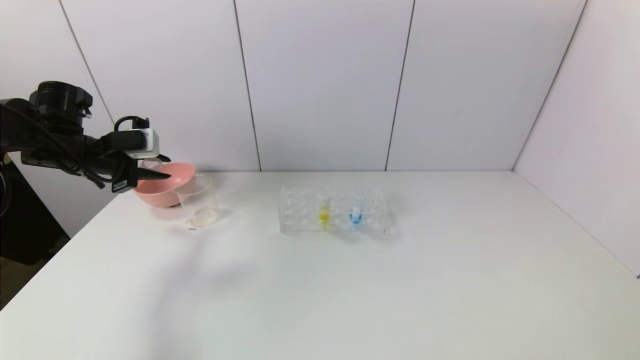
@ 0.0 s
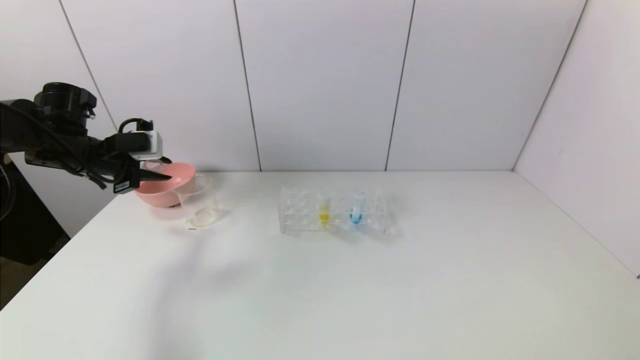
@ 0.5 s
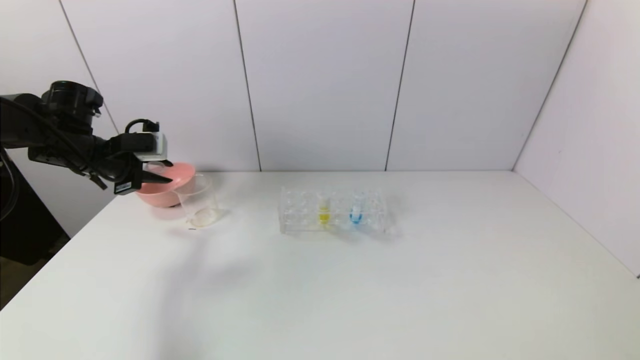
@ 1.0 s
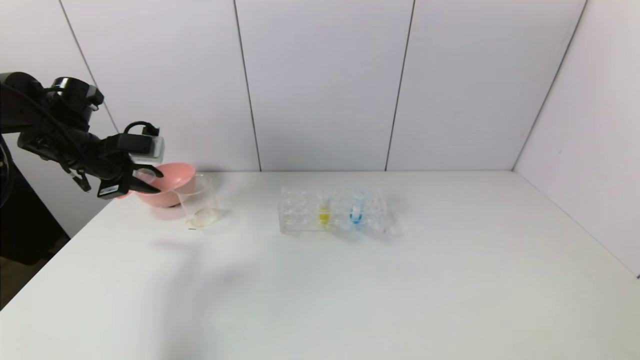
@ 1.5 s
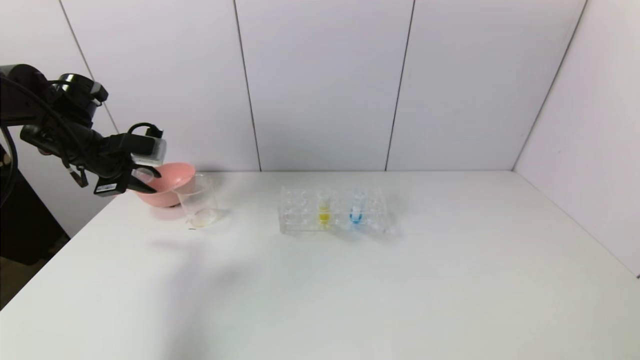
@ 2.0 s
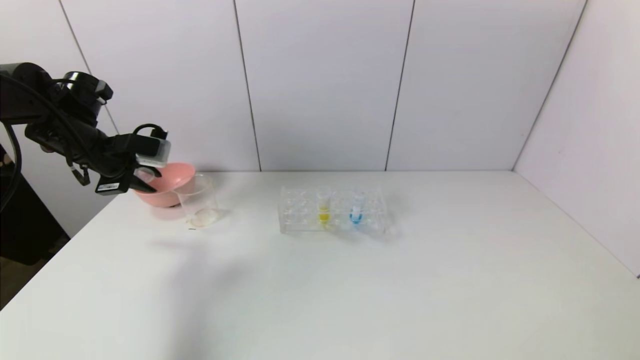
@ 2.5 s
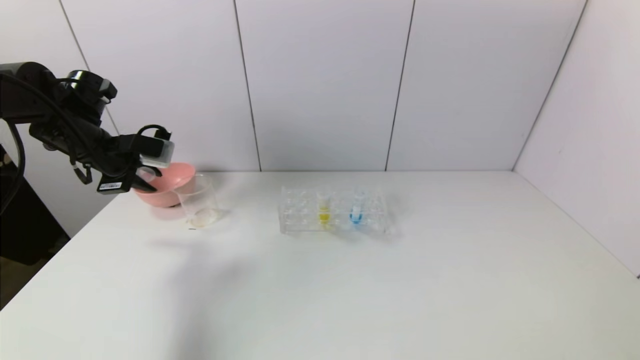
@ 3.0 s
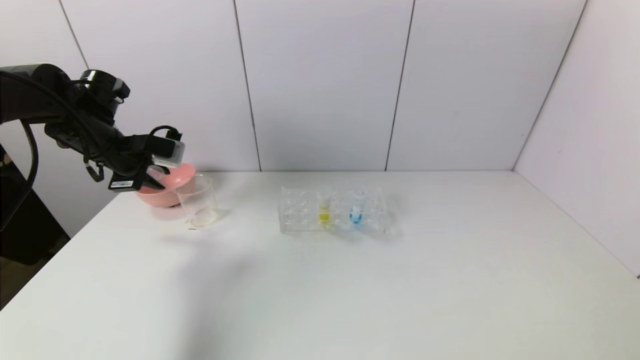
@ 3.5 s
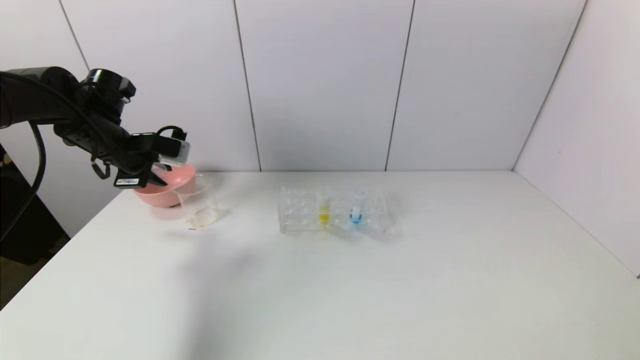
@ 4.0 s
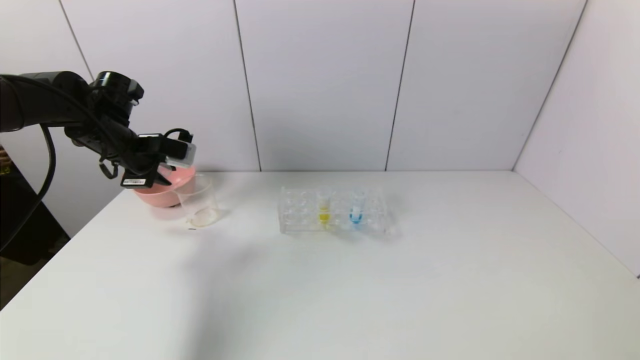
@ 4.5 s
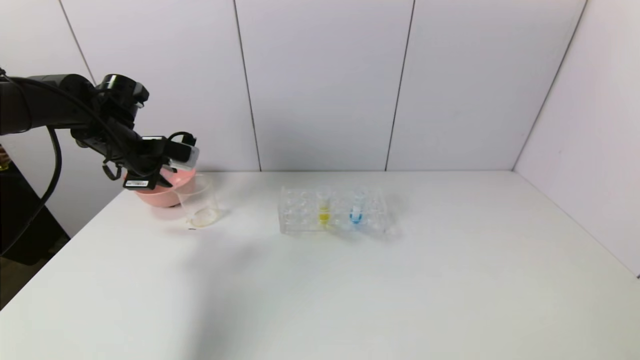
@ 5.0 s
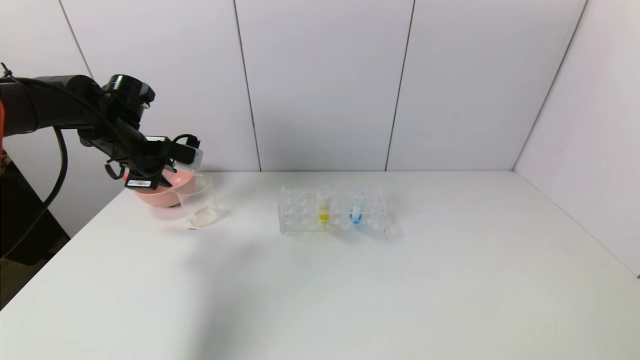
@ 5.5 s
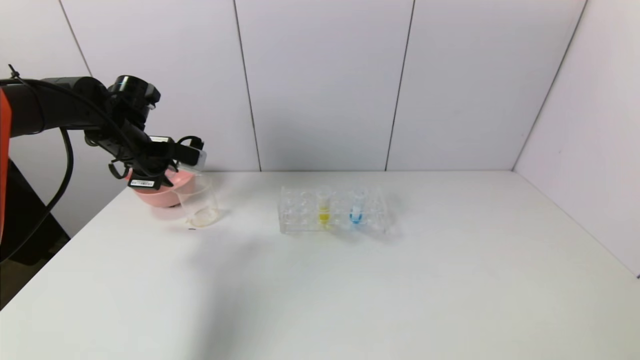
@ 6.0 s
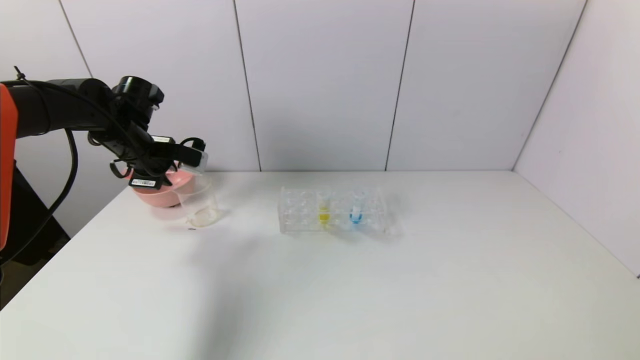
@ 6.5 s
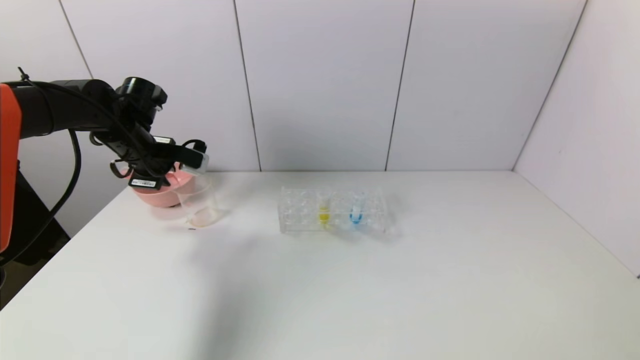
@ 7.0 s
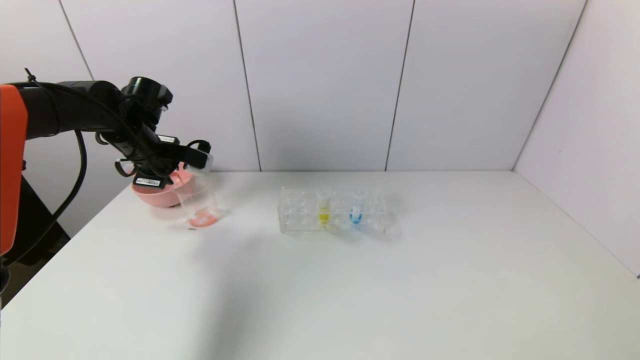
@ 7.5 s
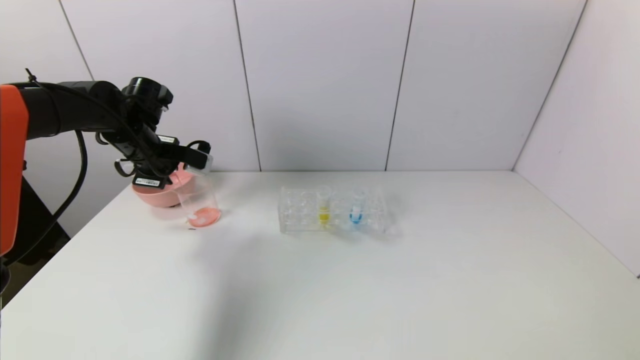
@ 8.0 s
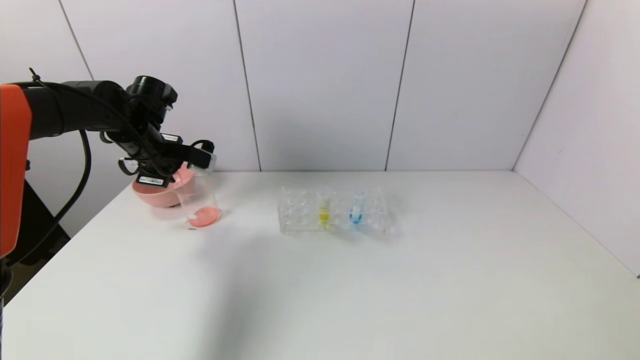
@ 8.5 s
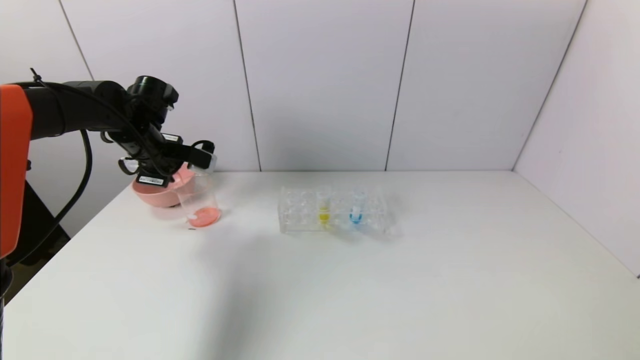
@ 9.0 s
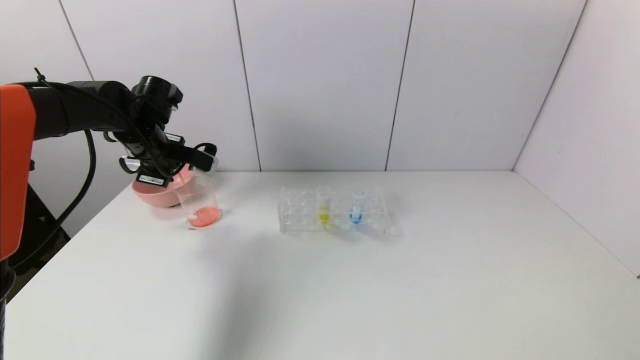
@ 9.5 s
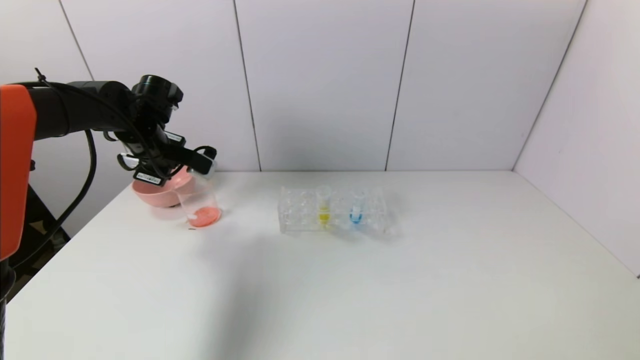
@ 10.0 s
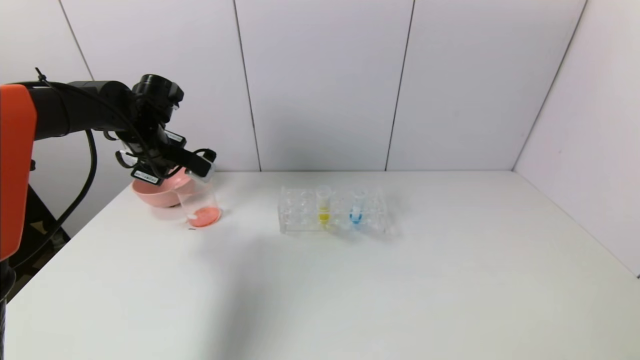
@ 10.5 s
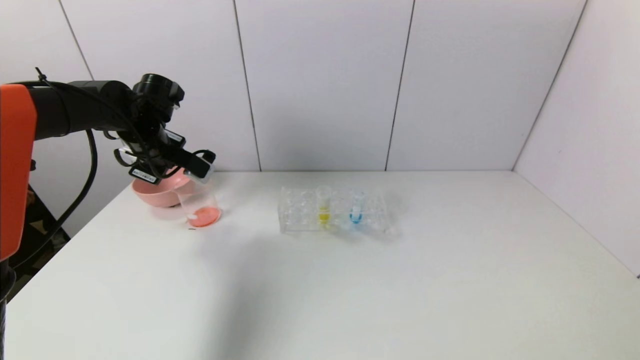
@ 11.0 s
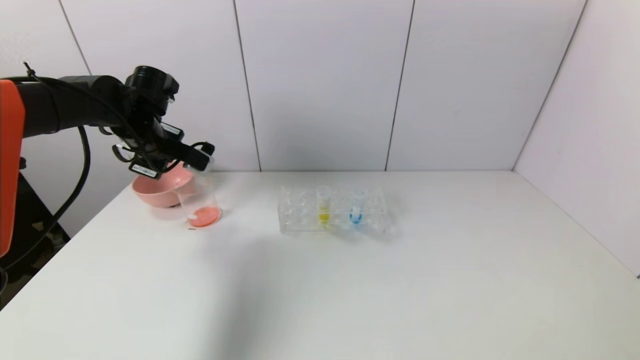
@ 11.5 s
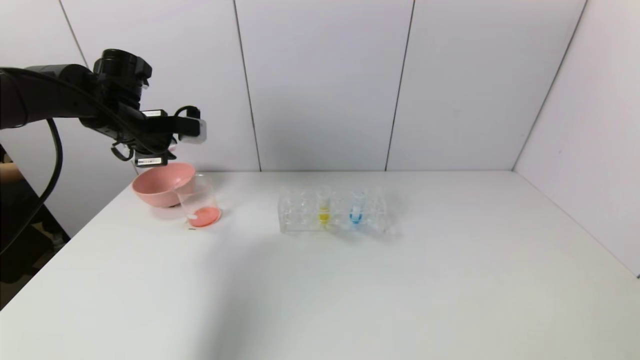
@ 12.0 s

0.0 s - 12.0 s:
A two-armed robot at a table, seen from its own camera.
Task of the whole recording: pick up the test tube with yellow pigment and the test tube with red pigment by grippers and pour them into the beaker.
Step, 0.0 s - 11.0 s: Pour the red reagent into the graduated cylinder with the left gripper.
0.0 s - 2.0 s: The grippers stay close to where they were, moving slightly.
2.0 s - 4.0 s: The grippers make only small movements.
4.0 s - 8.0 s: The grippers stay close to where they were, moving slightly.
8.0 s - 10.0 s: The grippers make only small movements.

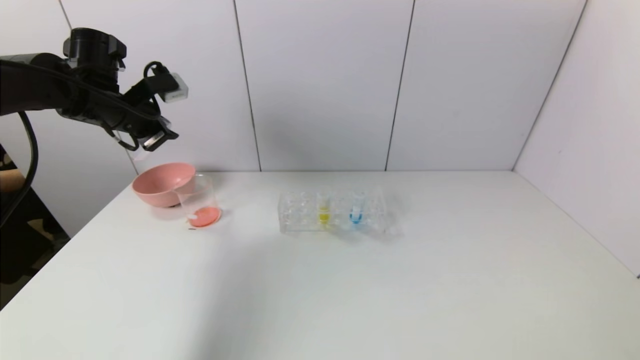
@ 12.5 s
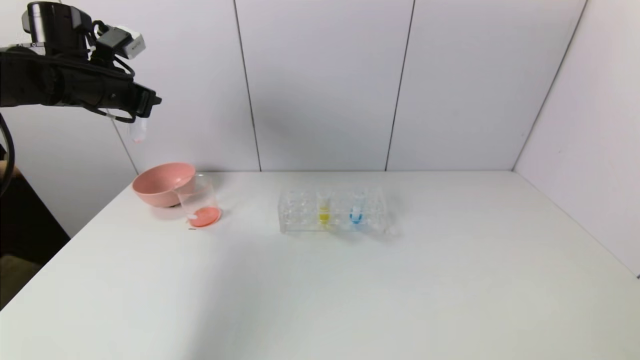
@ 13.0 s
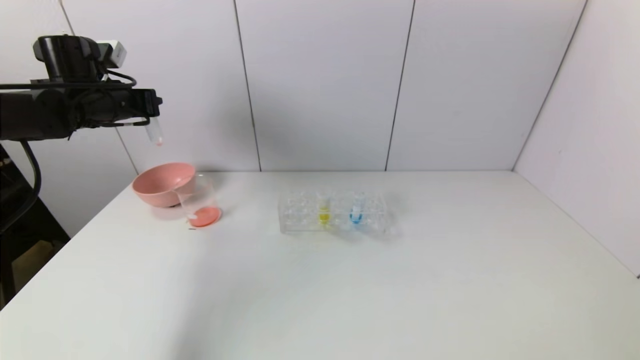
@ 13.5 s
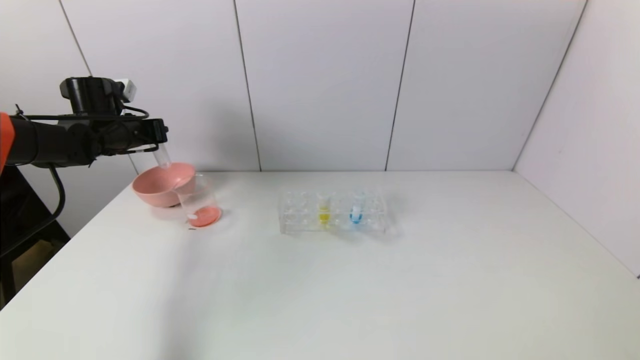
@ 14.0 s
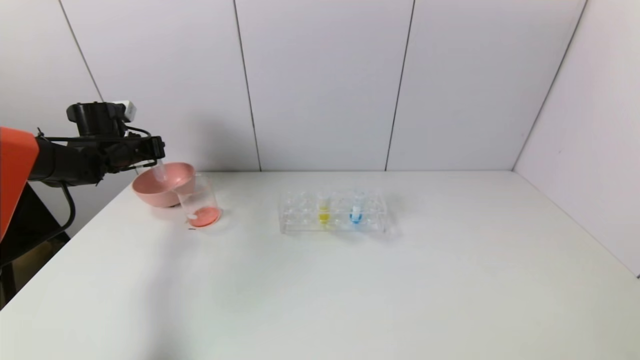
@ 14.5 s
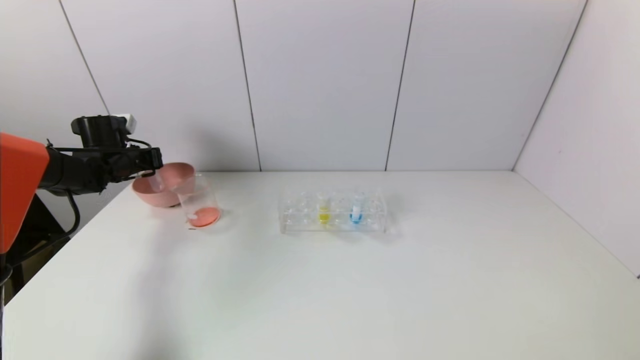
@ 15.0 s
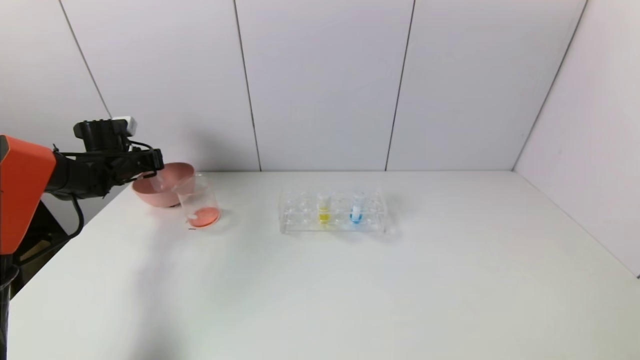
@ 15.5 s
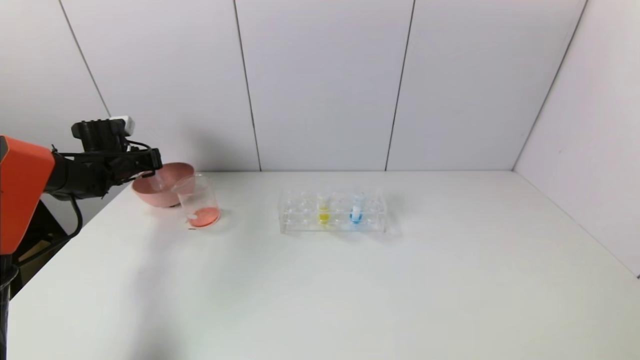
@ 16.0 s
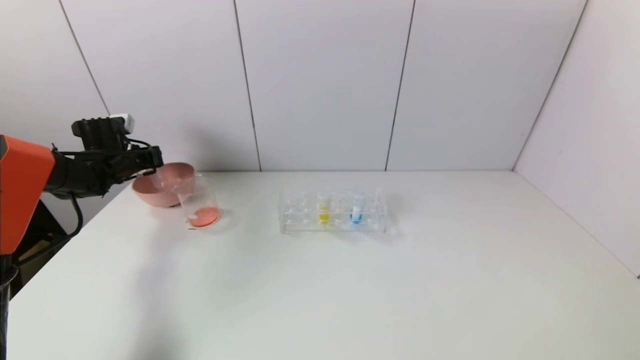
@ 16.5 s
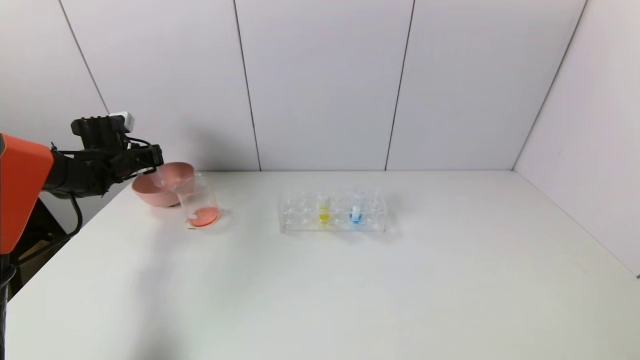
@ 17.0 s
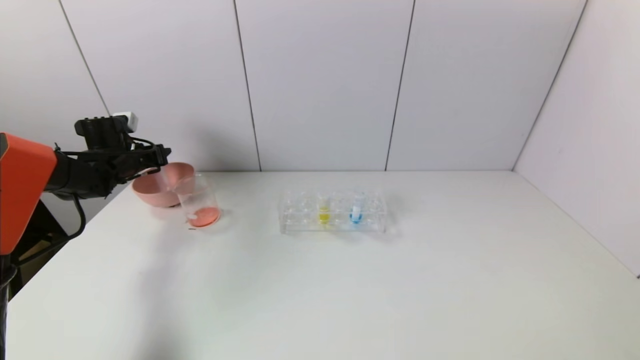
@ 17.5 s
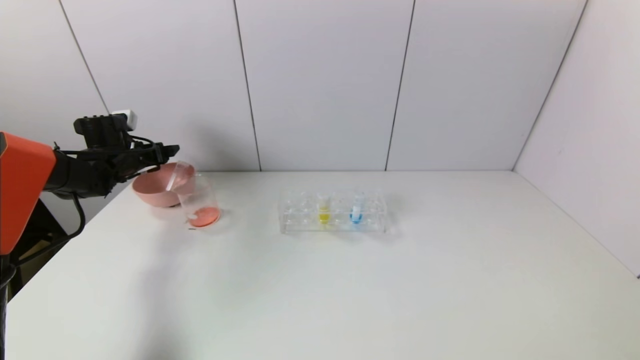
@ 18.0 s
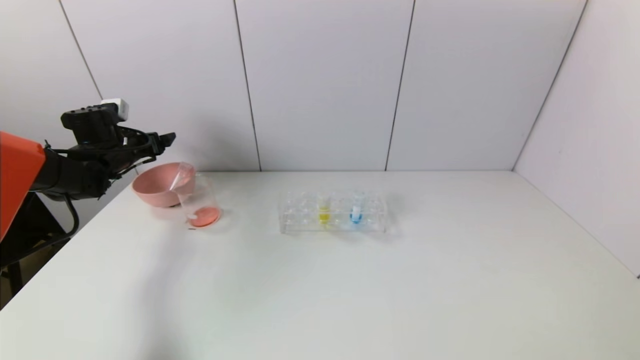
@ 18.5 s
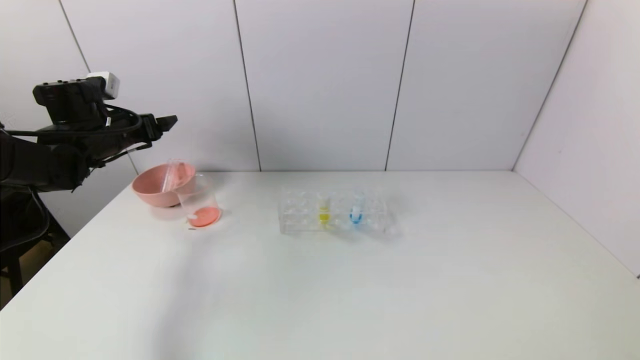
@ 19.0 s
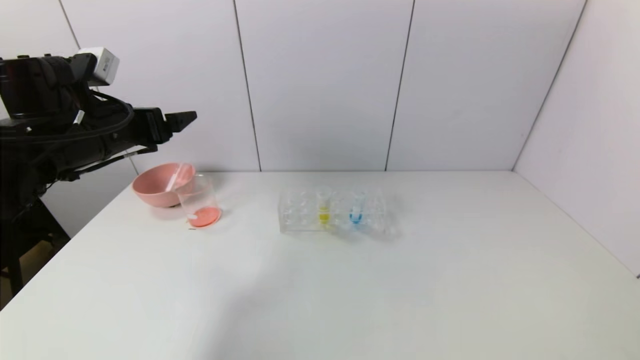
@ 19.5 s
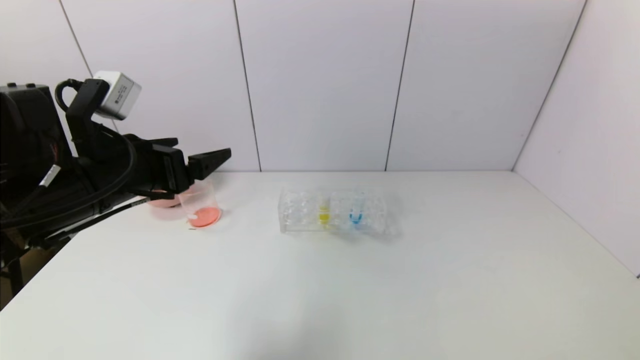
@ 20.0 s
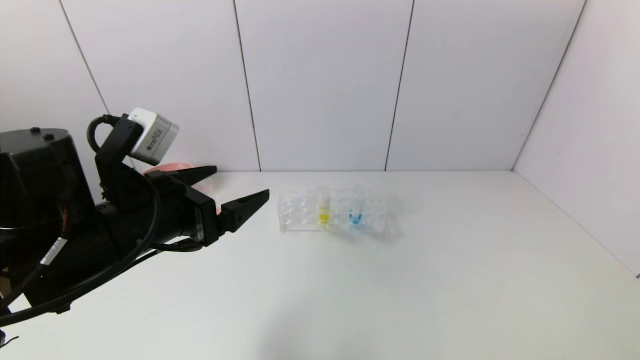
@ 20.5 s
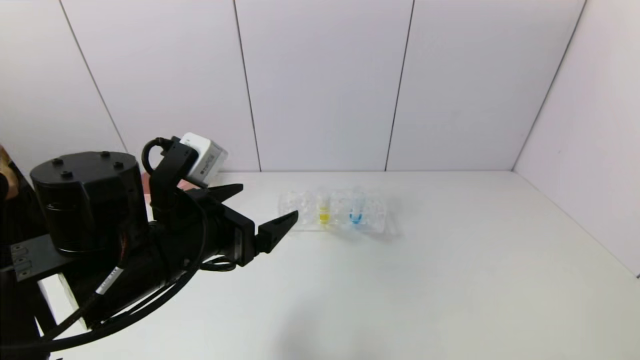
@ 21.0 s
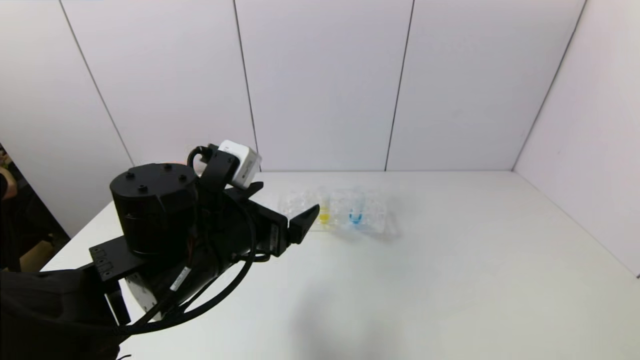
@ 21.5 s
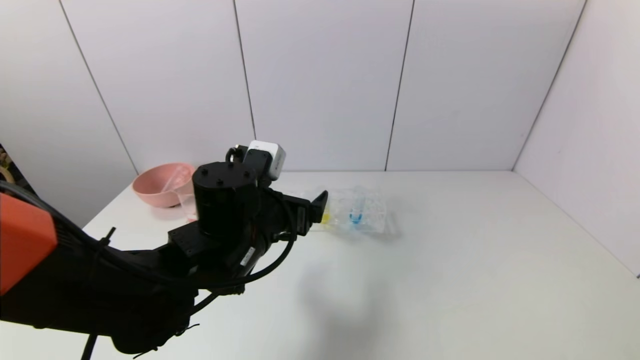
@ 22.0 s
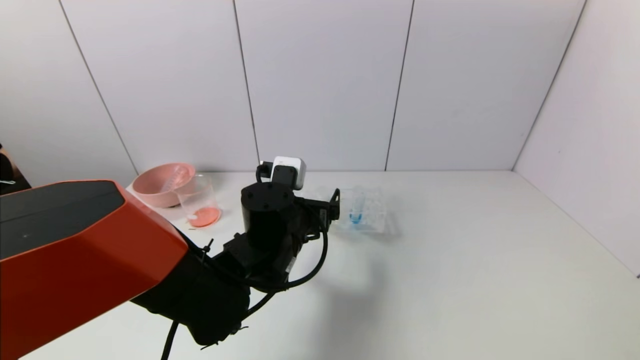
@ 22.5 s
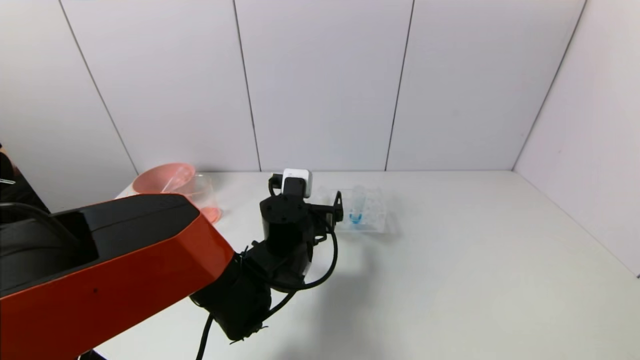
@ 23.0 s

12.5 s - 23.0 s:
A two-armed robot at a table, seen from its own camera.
Task of the whole recording: pick up the test tube with yellow pigment and the test tube with red pigment by grippers and pour them into the beaker.
Step, 12.5 s - 17.5 s: Place the test tube into the pink bowl with the left gripper.
12.5 s - 14.5 s: The left gripper travels downward, to the left and forward by approximately 15 cm.
14.5 s - 16.5 s: The grippers stay close to where they were, moving slightly.
16.5 s - 19.0 s: The left gripper heads upward, backward and to the right, covering about 15 cm, and opens up.
19.0 s - 21.0 s: The left gripper goes roughly 30 cm backward and to the right.
21.0 s - 23.0 s: The left gripper goes approximately 20 cm to the right, forward and downward.
